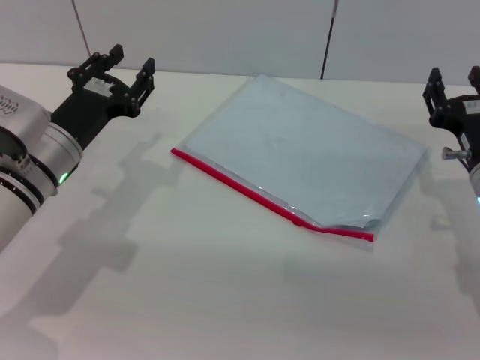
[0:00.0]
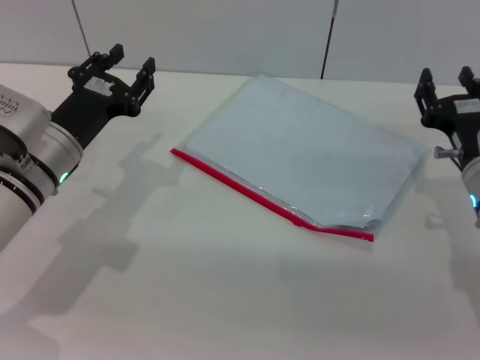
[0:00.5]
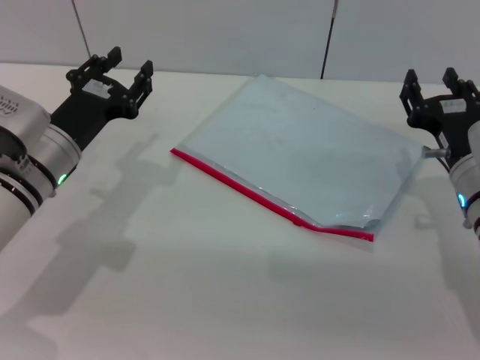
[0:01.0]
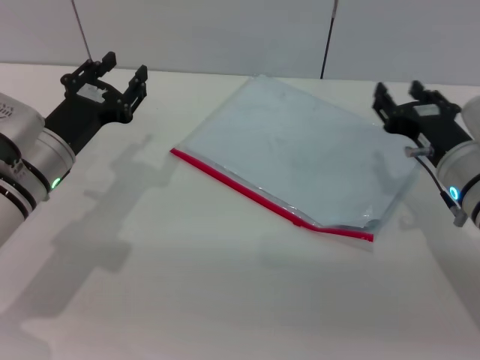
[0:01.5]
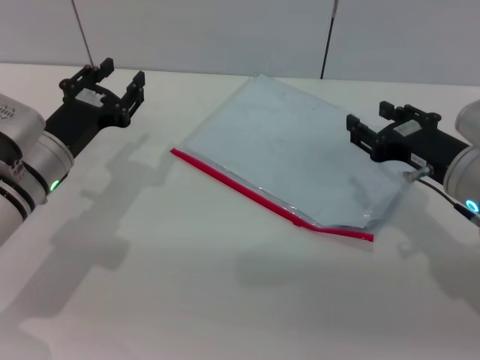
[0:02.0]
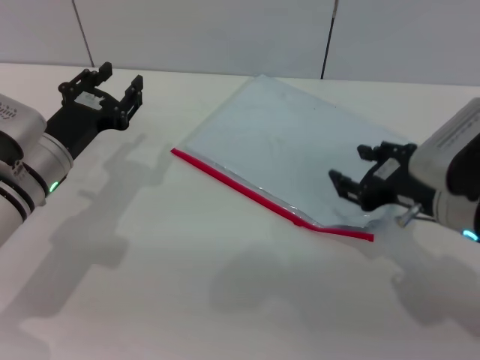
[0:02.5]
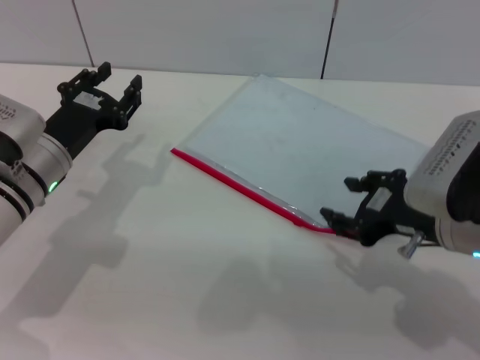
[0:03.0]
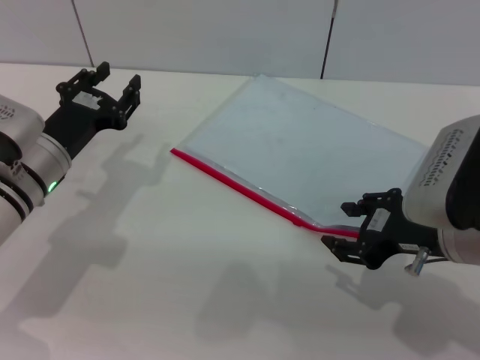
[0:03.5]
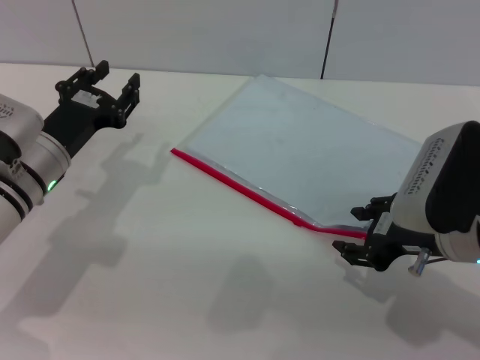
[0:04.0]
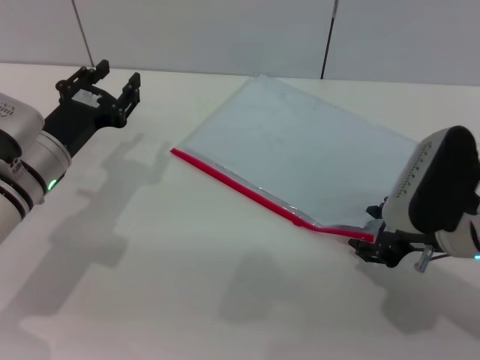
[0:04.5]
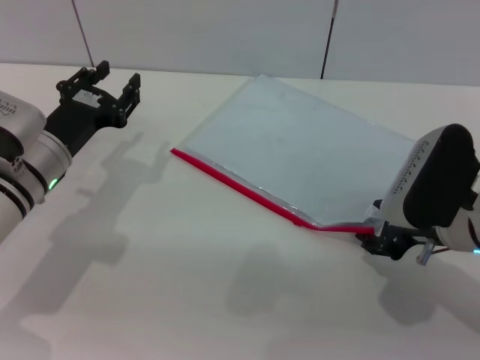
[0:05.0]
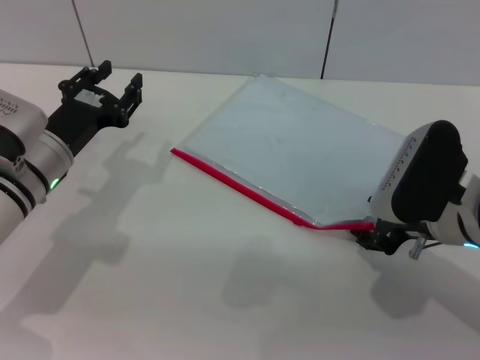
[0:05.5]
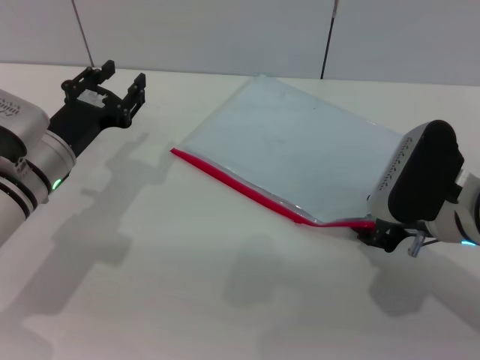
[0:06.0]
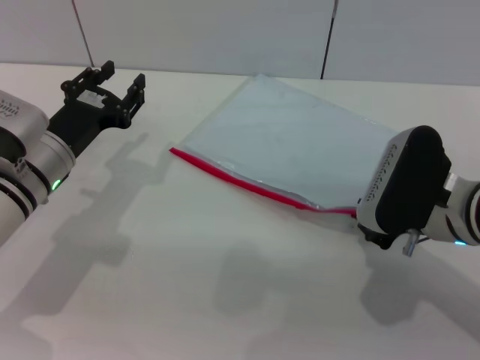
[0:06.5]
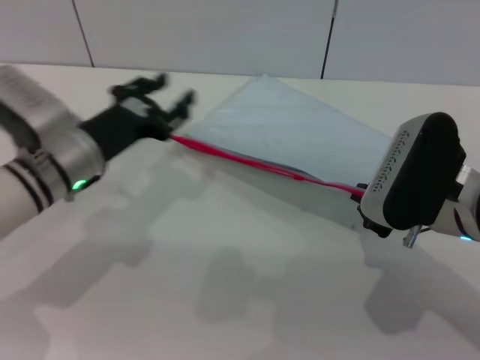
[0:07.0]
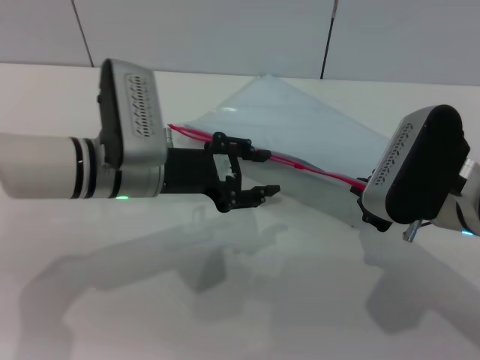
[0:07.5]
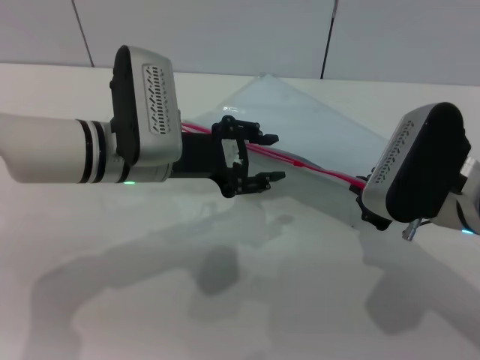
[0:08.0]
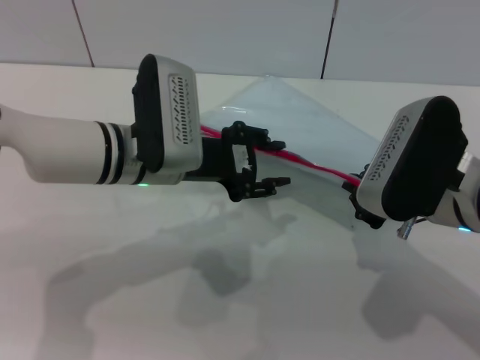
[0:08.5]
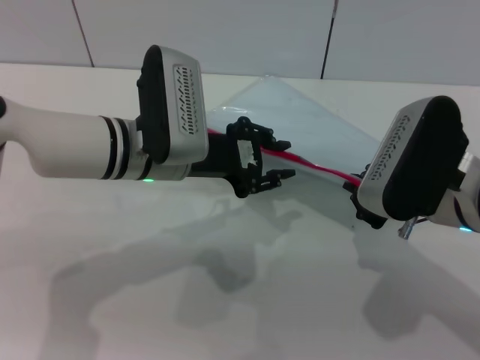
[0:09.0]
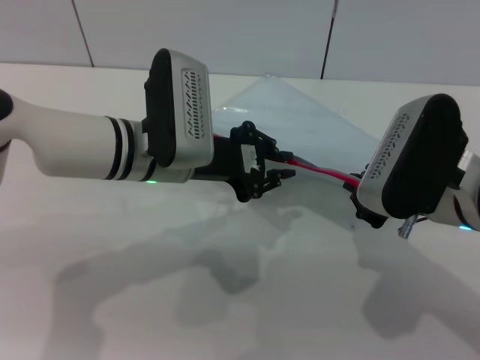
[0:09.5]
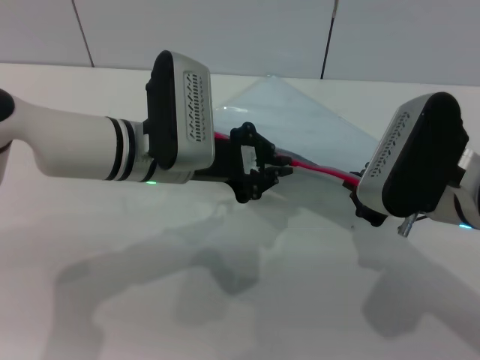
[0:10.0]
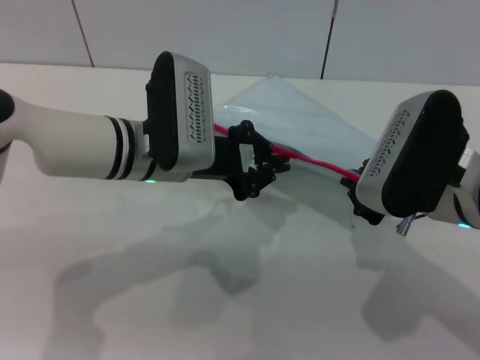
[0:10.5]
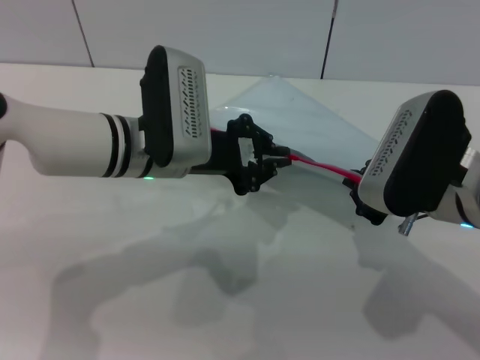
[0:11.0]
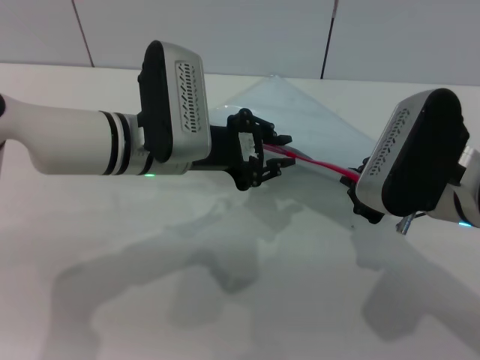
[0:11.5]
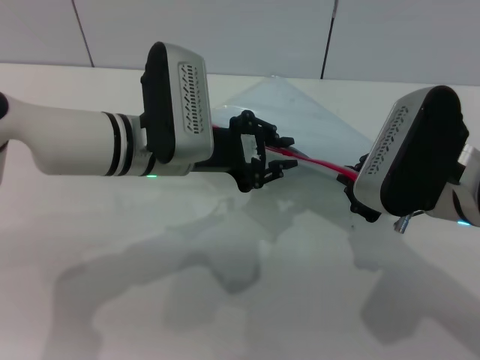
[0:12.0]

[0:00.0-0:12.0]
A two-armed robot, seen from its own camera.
Step, 0:00.0 to 0:06.5: Pick up the transparent plastic bag with the right gripper.
0:04.0 to 0:06.0: There are only small adjustments of the grippers.
0:06.0 to 0:08.0: The left gripper is displaced to the right and upward by about 10 cm, while the right gripper closes.
0:08.0 to 0:10.0: The left gripper closes its fingers.
0:10.0 to 0:12.0: Both grippers stay put.

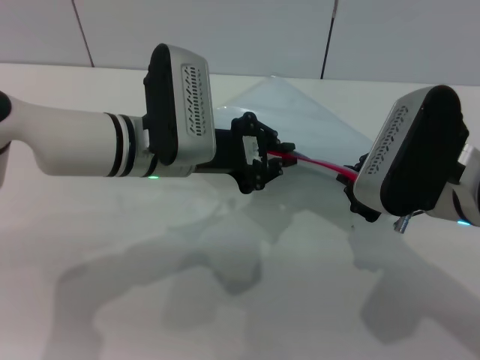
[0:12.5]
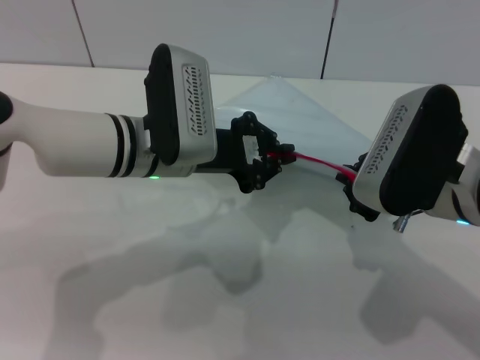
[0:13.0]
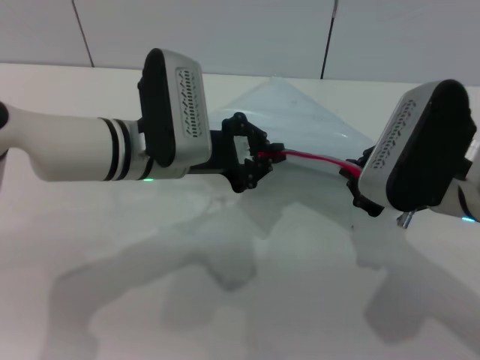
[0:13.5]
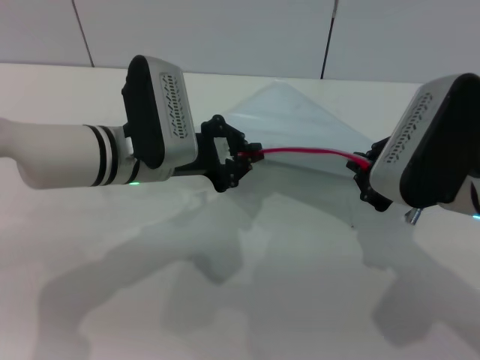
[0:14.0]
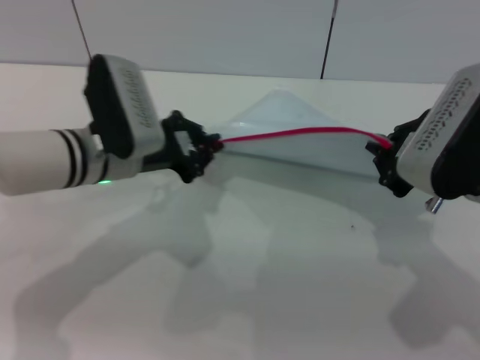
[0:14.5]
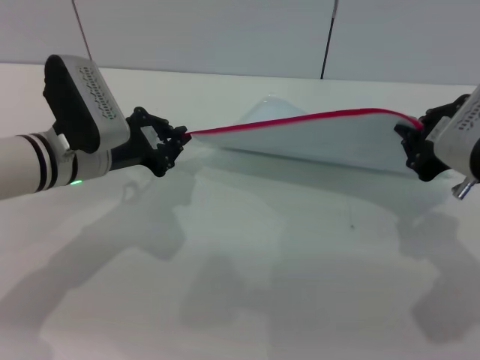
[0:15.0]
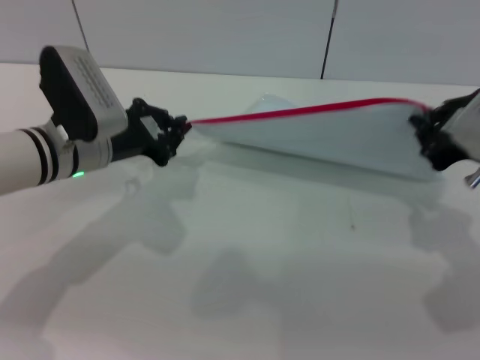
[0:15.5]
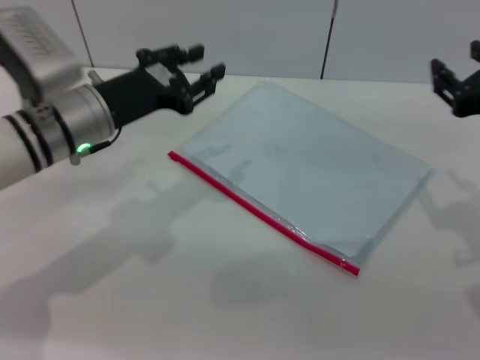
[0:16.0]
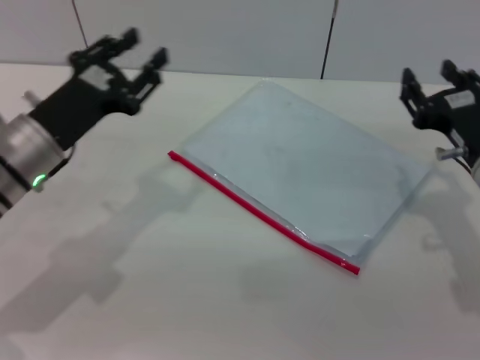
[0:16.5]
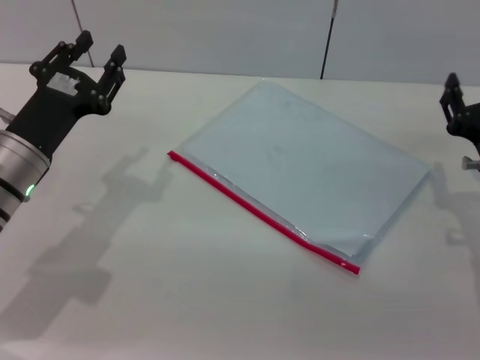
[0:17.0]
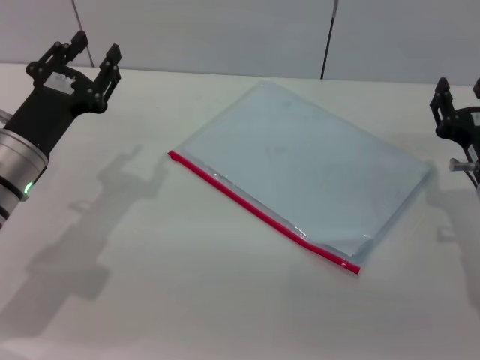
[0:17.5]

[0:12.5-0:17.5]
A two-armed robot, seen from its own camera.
Step, 0:12.5 to 0:15.5: Pulling up the zipper on the transparent plastic bag with the left gripper to close it.
Step, 0:16.0 to 0:16.5: Place the transparent plastic bag.
0:12.5 to 0:15.0: The right gripper moves some 5 cm. Meanwhile the left gripper is displaced to the left by roughly 10 cm.
0:15.0 to 0:17.5: The left gripper changes place by some 5 cm, and opens. Meanwhile the right gripper is displaced downward by roughly 15 cm, and opens its fingers.
